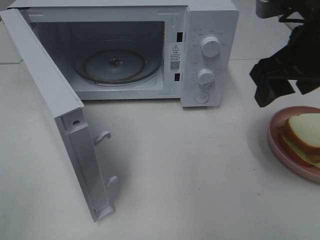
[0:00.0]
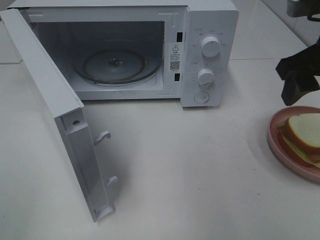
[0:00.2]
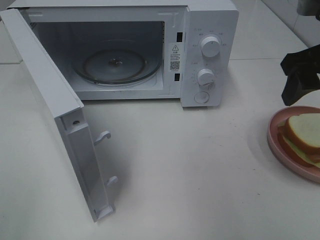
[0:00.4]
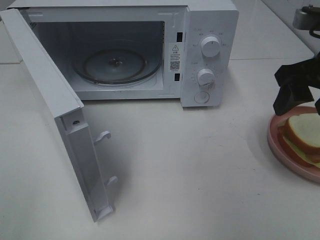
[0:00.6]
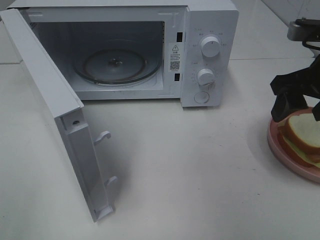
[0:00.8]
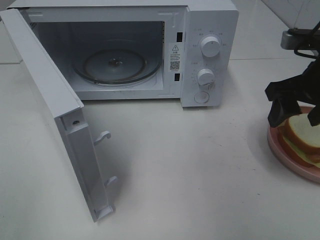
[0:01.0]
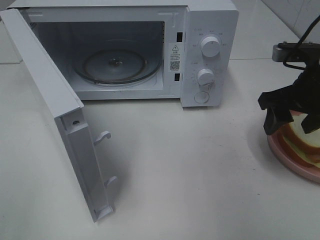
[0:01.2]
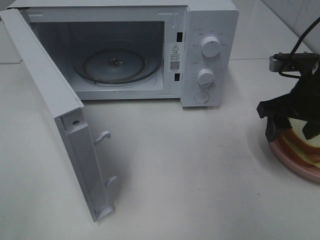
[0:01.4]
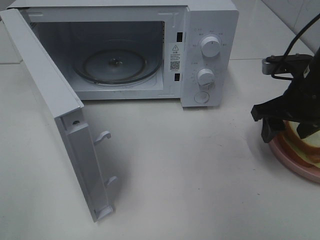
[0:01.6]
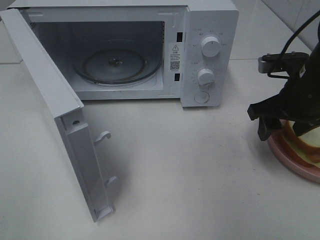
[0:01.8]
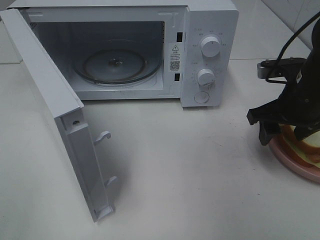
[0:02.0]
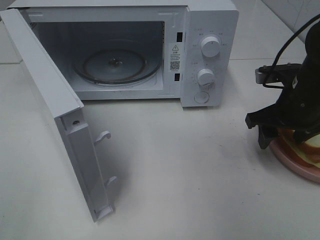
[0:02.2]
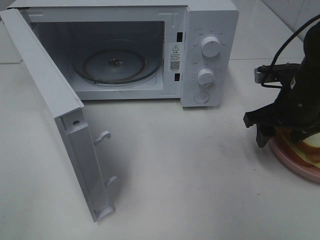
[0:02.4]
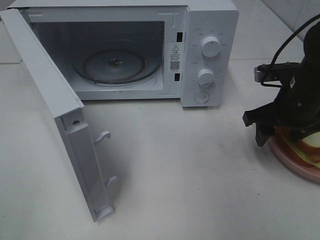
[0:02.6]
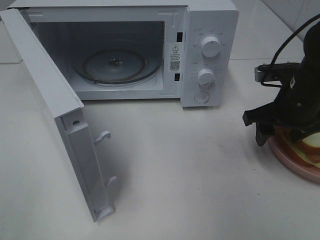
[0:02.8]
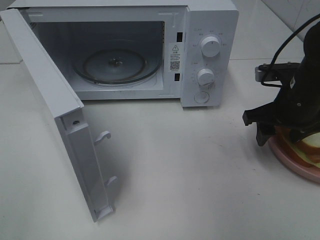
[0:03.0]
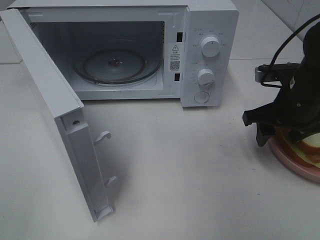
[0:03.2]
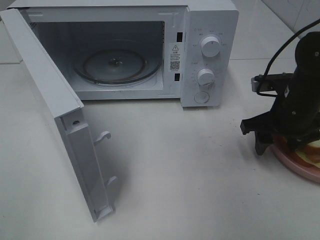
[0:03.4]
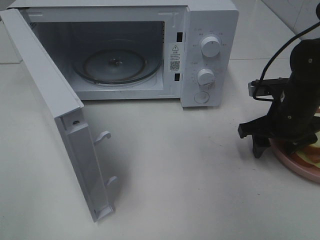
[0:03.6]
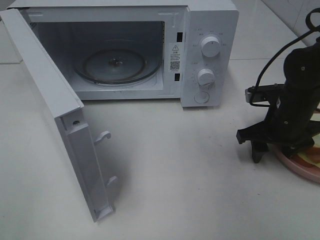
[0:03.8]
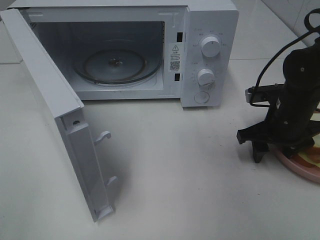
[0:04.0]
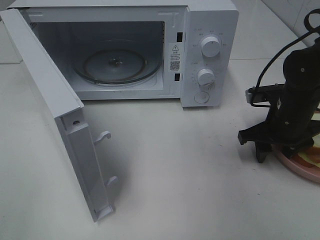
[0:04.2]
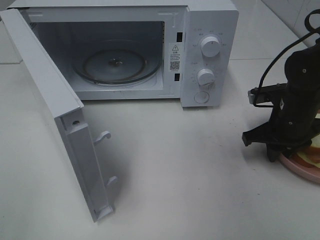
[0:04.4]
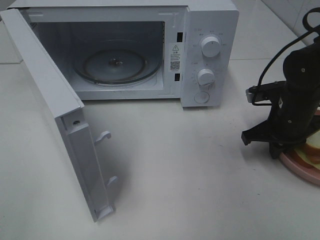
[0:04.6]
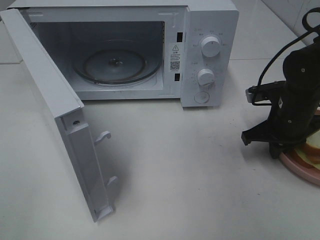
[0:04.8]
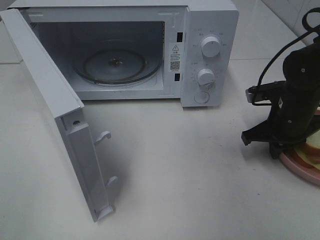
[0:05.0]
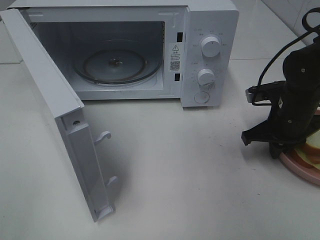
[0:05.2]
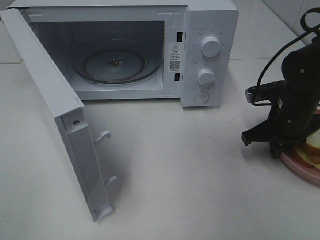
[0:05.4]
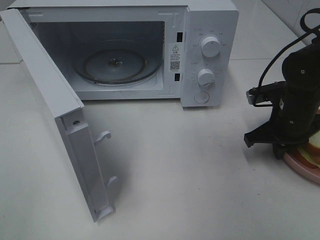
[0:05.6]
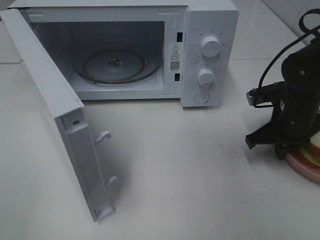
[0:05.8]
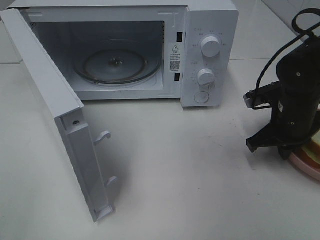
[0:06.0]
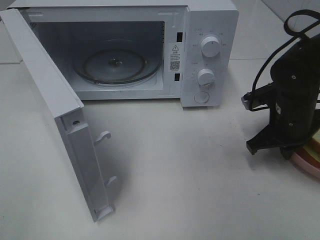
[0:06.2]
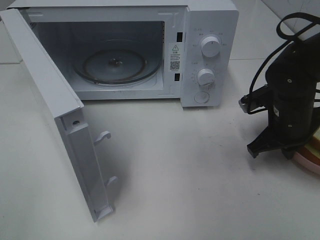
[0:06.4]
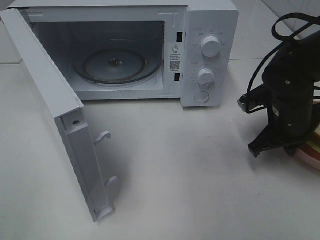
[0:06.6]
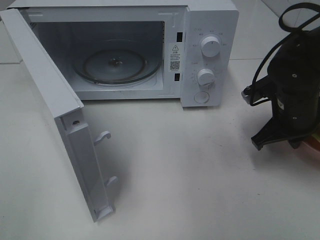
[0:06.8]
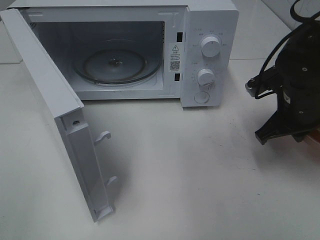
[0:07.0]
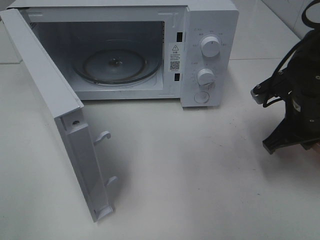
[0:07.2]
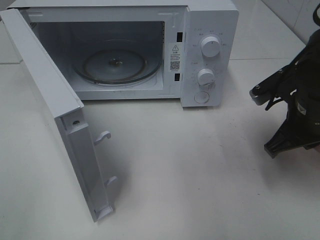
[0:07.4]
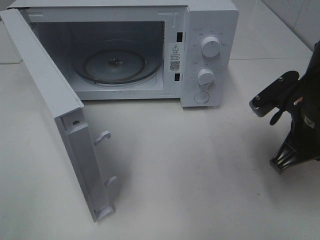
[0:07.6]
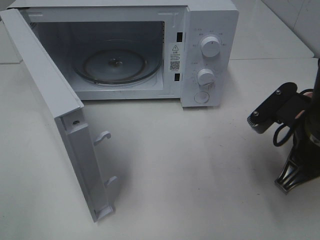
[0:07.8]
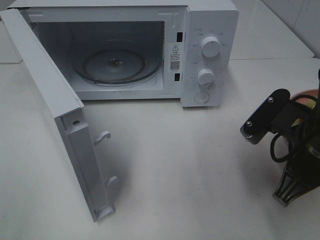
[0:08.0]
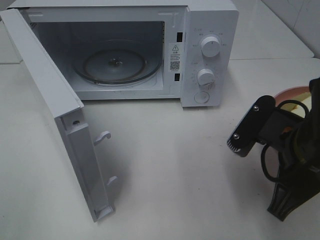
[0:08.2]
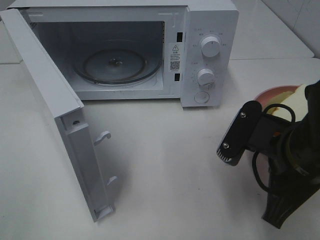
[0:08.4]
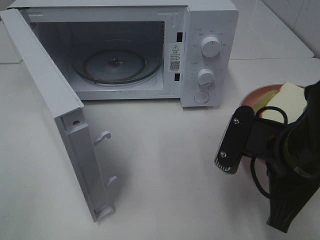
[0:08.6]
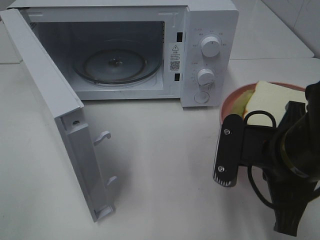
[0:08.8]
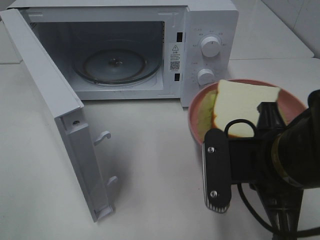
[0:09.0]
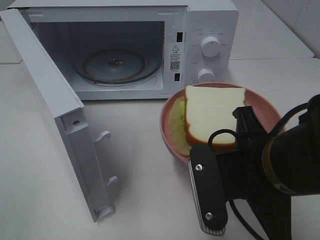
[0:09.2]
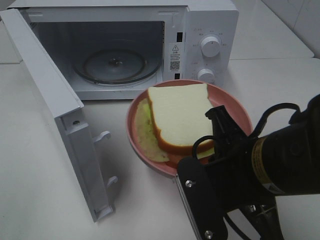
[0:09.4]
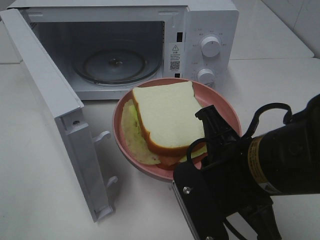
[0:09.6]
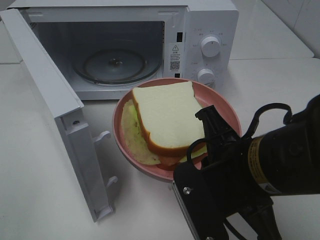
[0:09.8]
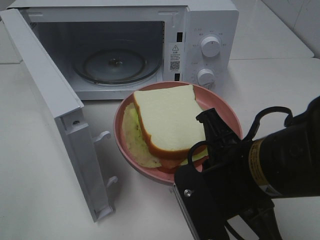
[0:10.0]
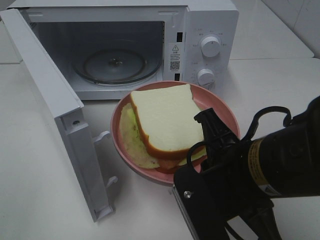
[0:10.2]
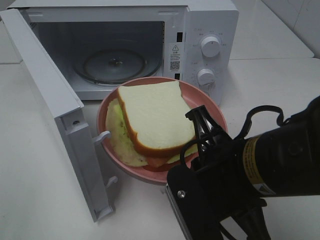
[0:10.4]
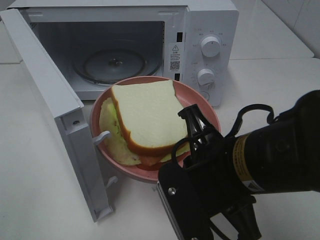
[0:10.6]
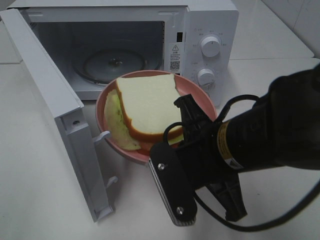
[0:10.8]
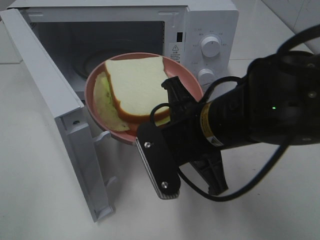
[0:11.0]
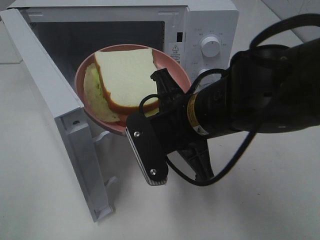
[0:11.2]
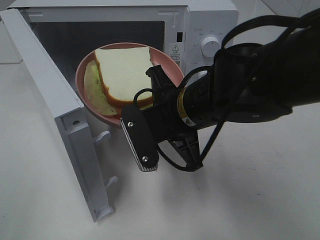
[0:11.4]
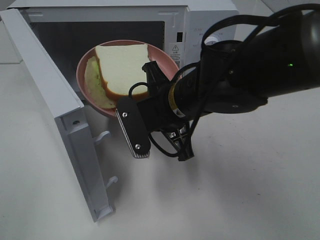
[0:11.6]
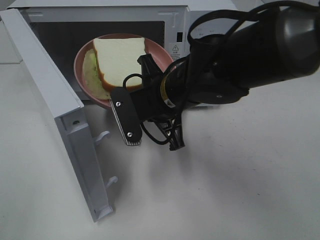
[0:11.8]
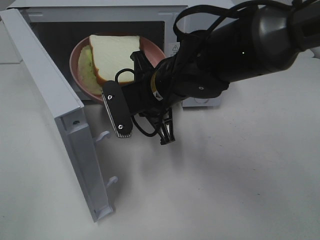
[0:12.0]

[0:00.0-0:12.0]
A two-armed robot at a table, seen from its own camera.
Task of the whole recording: Heat Sandwich.
Step, 0:00.0 to 0:05.8: Right hand: grab the plate with the sandwich.
0:00.0 to 0:01.6: The right gripper goes about 10 cm downward.
0:01.6 to 0:03.0: The grippers move only a little.
0:03.0 to 0:04.4: The right gripper closes its fingers.
0:04.4 to 0:06.0: The right gripper closes up.
0:06.0 to 0:07.6: The right gripper moves backward and upward, approximately 10 cm.
0:07.6 to 0:09.0: The right gripper moves to the left and backward, about 10 cm.
0:10.4 to 0:12.0: The right gripper shifts roughly 20 cm forward and to the left.

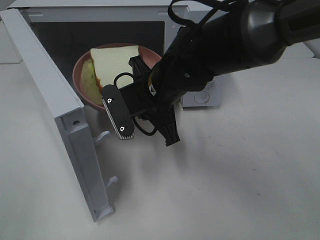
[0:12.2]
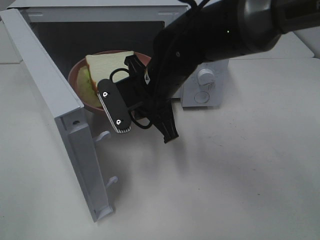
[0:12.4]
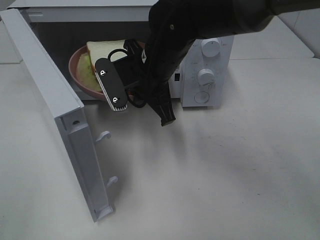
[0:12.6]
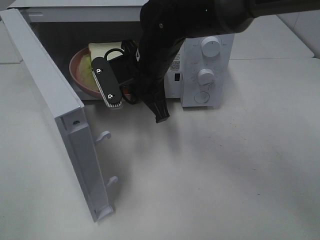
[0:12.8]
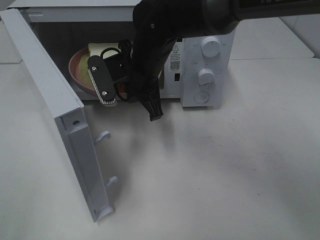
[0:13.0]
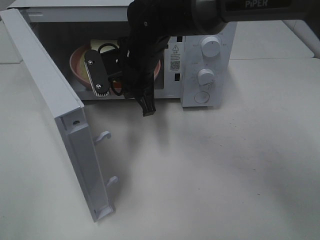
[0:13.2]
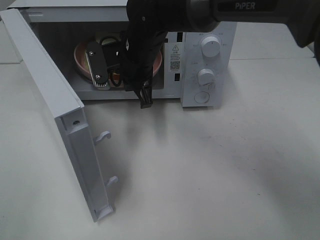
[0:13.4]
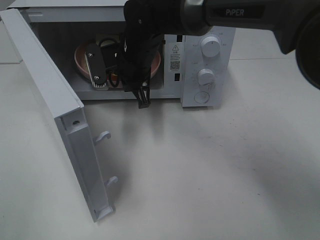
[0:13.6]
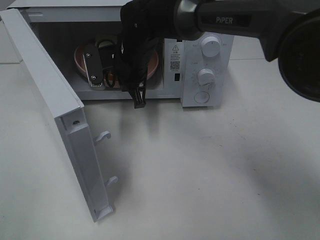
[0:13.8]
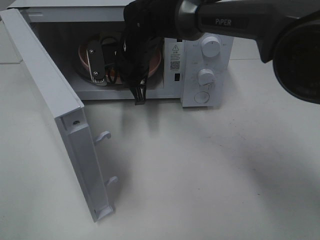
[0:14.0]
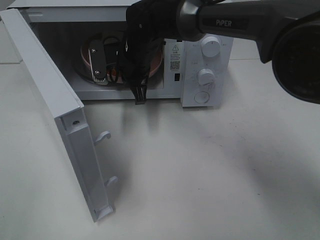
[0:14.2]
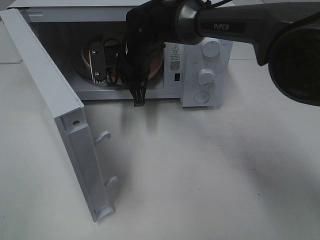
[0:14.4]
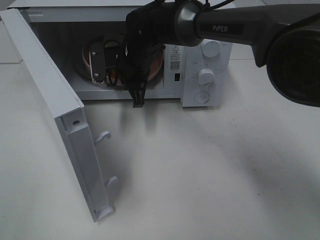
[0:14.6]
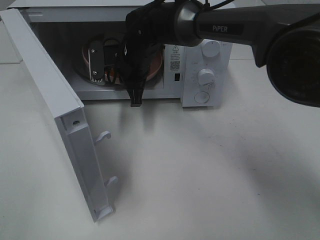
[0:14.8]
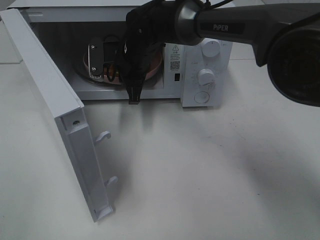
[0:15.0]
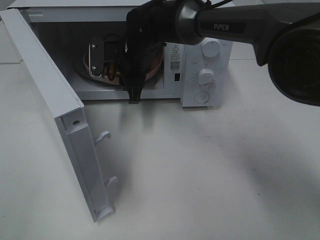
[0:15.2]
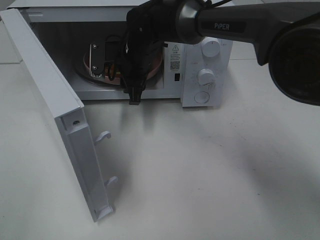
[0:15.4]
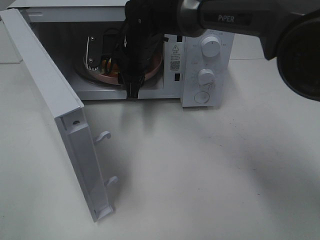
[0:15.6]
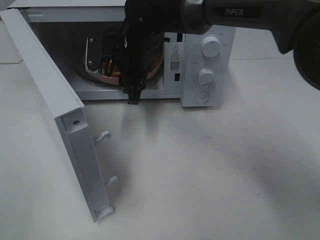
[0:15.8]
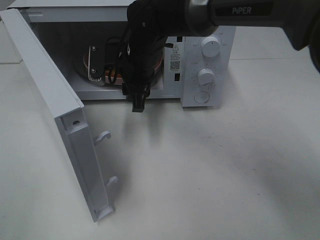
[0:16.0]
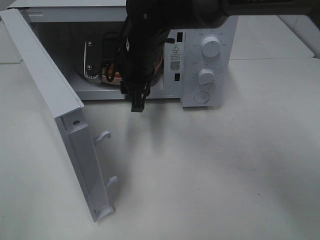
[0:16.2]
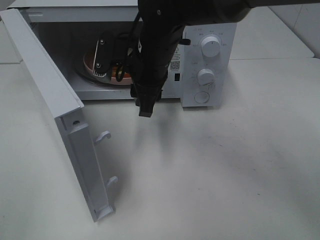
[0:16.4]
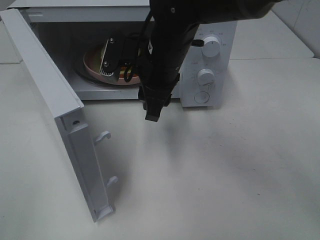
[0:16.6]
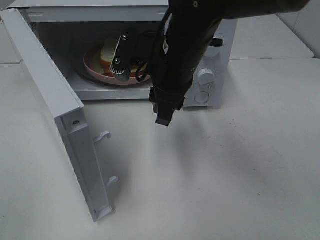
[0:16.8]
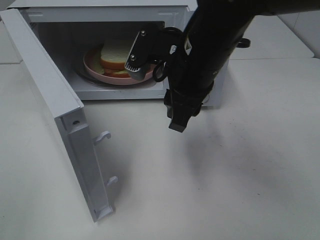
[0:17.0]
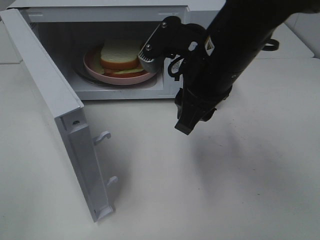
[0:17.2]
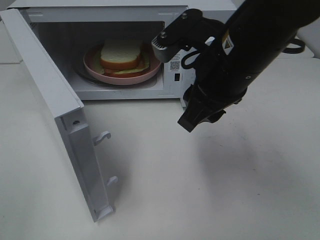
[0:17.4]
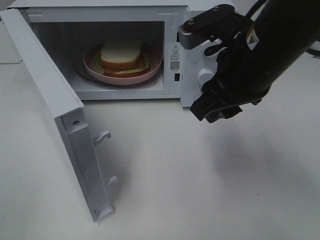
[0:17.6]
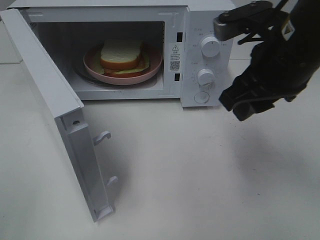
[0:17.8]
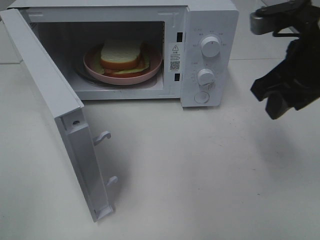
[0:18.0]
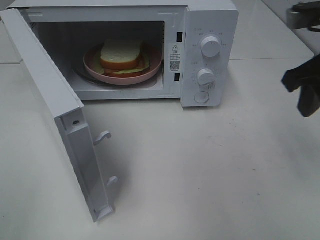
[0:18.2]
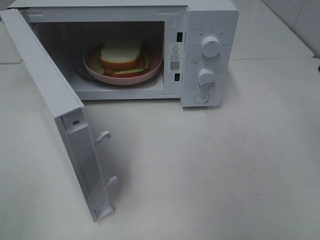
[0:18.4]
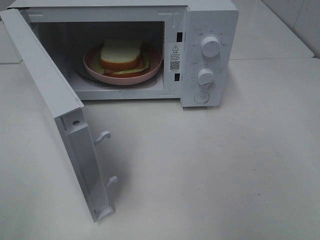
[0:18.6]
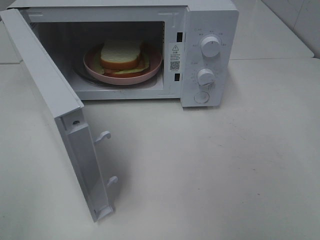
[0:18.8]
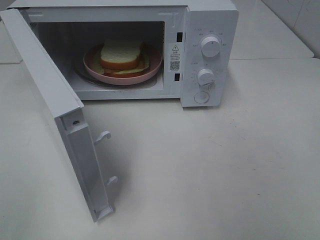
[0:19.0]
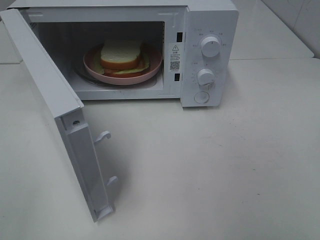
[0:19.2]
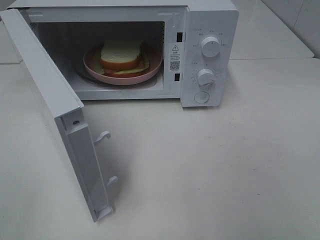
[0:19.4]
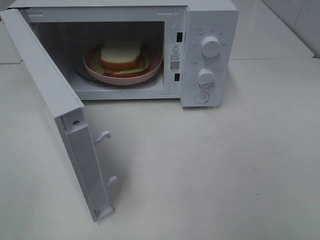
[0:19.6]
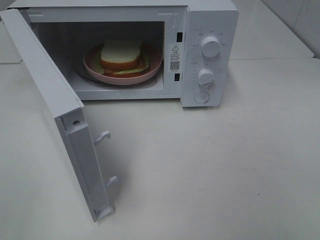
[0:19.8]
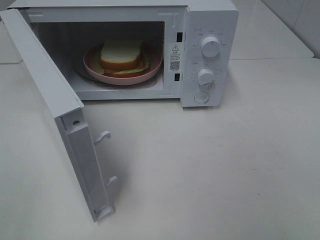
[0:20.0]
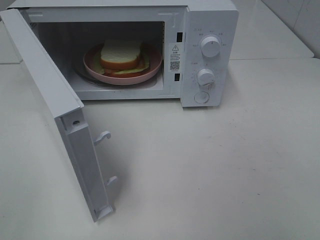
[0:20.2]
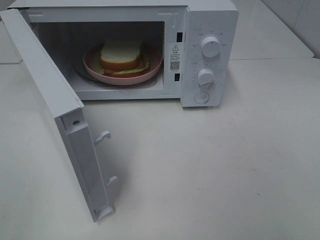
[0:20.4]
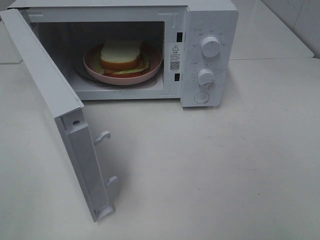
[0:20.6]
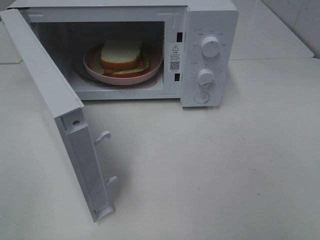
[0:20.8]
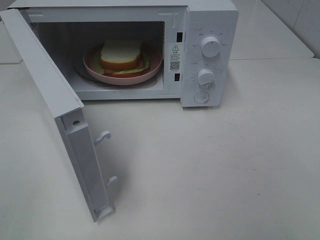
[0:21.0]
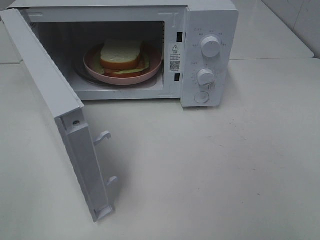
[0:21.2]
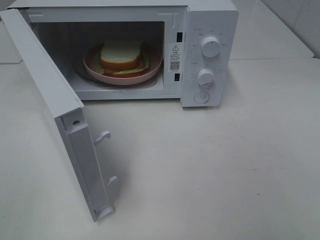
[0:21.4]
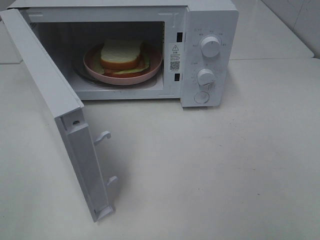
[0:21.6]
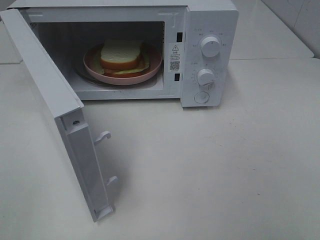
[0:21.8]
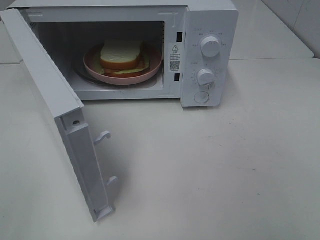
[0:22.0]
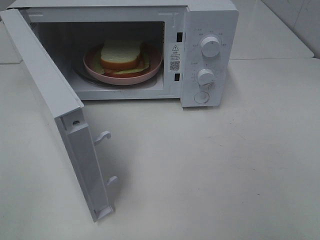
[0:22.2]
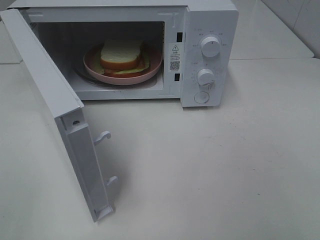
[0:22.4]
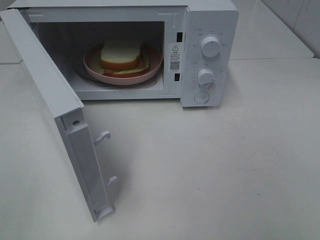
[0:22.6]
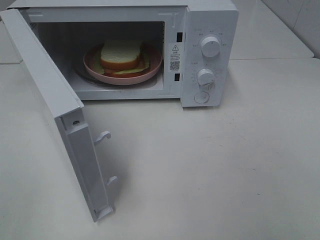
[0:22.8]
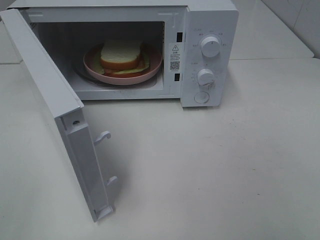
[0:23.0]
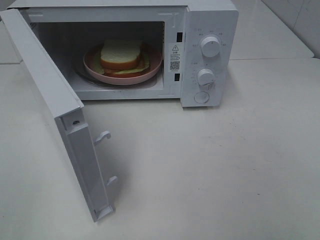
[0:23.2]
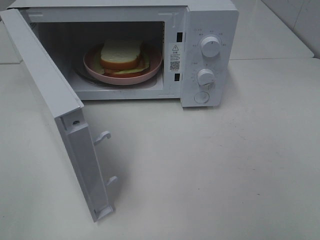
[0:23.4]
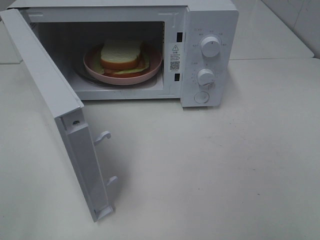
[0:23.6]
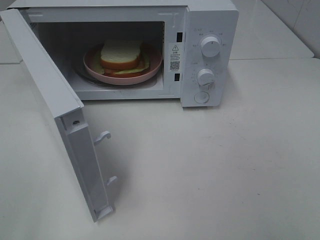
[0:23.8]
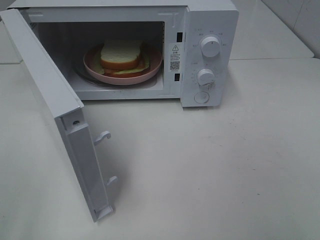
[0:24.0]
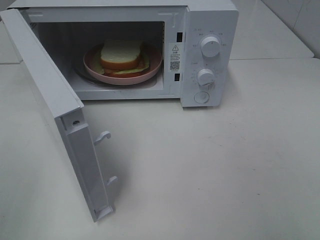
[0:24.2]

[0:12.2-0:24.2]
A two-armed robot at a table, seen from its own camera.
Task of the whole recording: Heat Sandwich.
Step, 0:12.2 to 0:15.6: Right hand: place the plate in the microwave.
0:12.2 to 0:13.8: The right gripper heads forward, covering some 10 cm.
0:13.8 to 0:15.2: The right gripper opens up.
0:15.2 to 0:16.6: The right gripper moves backward, about 10 cm.
0:16.6 to 0:18.2: The right gripper travels to the right by some 25 cm.
0:18.2 to 0:19.8: The right gripper heads backward, covering roughly 25 cm.
0:21.2 to 0:22.6: The two grippers keep their place.
